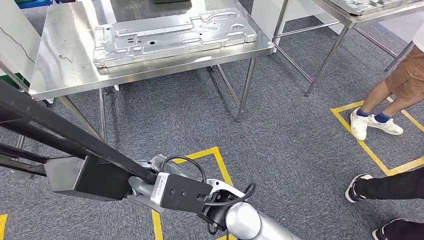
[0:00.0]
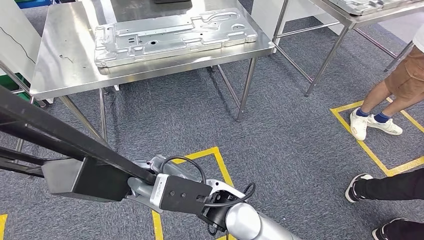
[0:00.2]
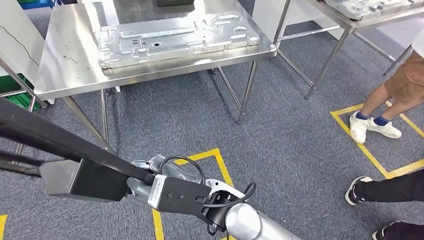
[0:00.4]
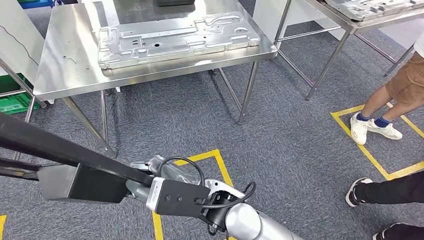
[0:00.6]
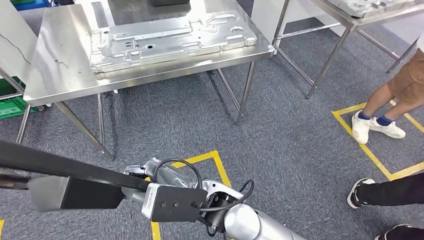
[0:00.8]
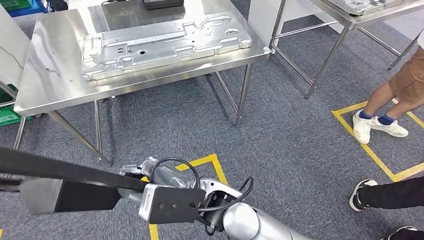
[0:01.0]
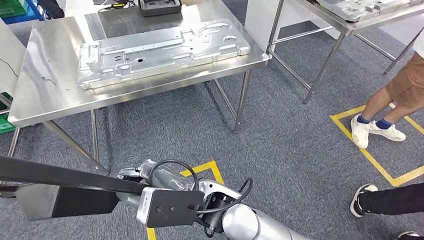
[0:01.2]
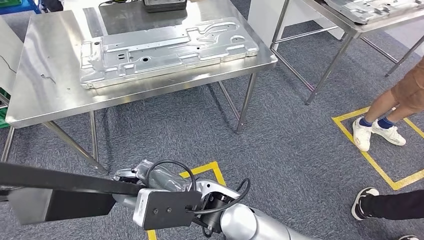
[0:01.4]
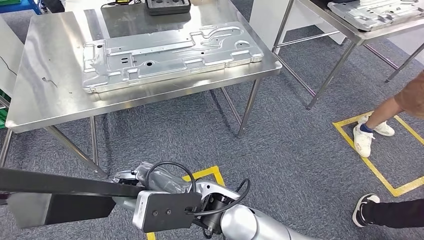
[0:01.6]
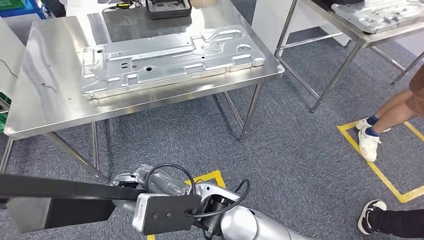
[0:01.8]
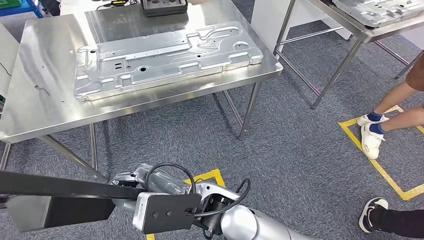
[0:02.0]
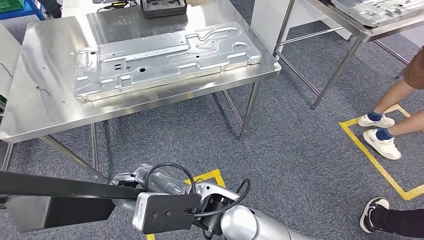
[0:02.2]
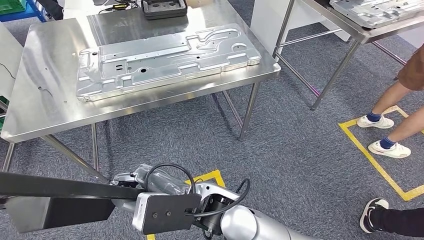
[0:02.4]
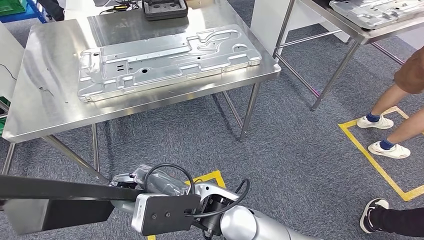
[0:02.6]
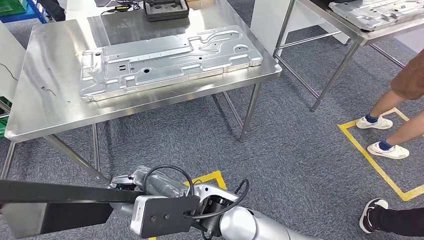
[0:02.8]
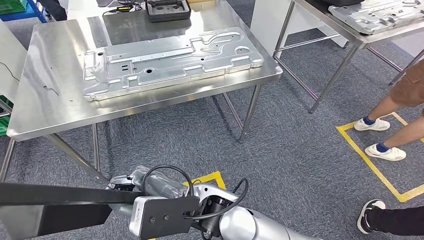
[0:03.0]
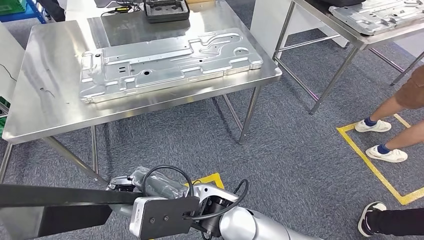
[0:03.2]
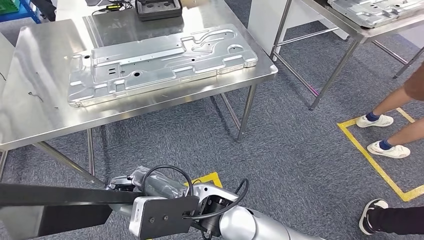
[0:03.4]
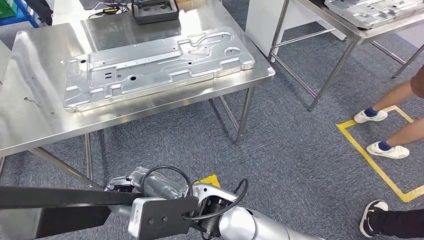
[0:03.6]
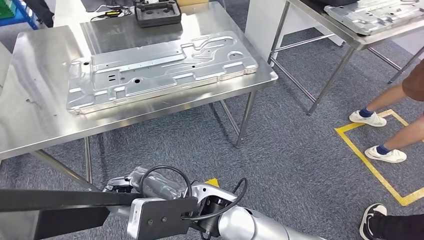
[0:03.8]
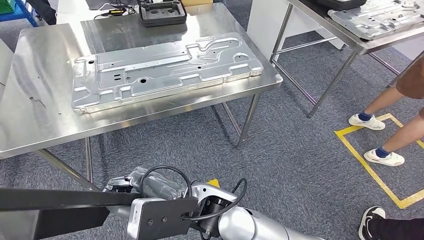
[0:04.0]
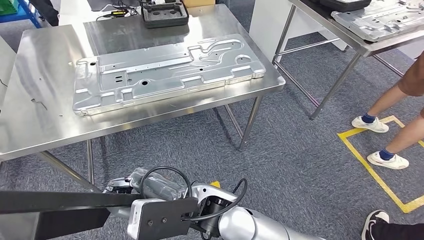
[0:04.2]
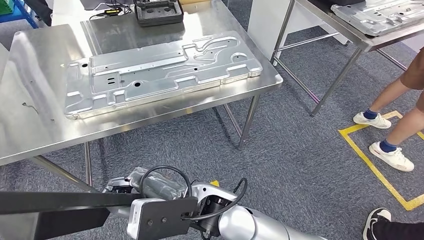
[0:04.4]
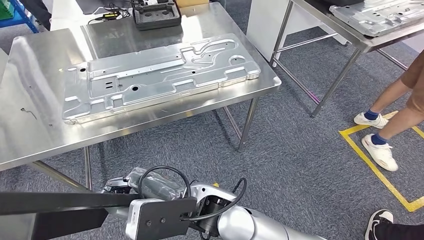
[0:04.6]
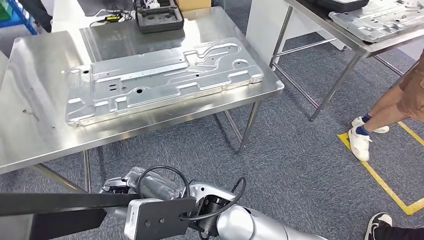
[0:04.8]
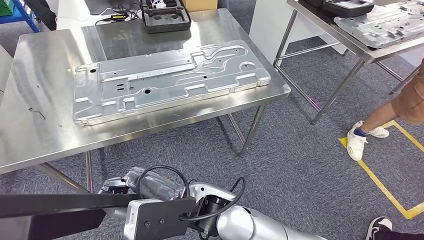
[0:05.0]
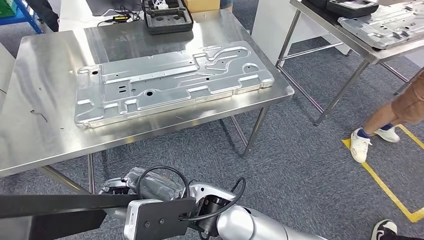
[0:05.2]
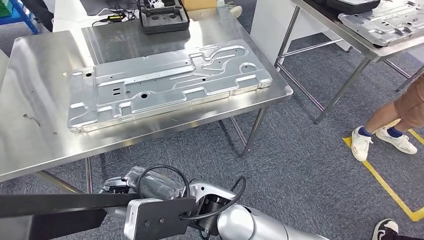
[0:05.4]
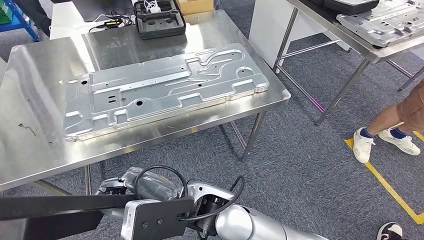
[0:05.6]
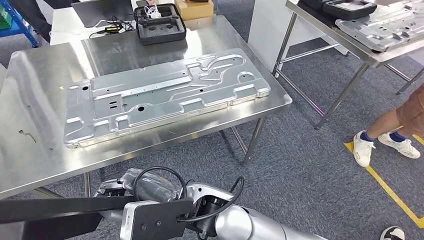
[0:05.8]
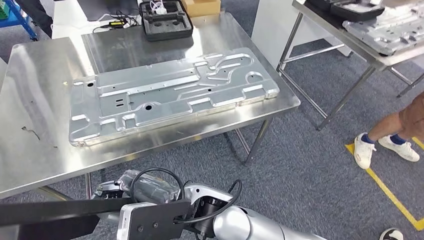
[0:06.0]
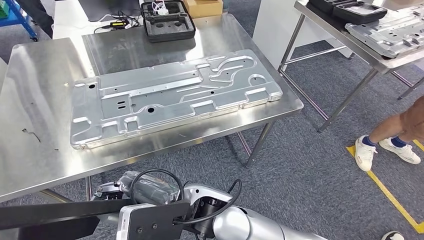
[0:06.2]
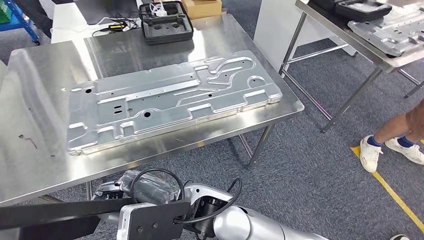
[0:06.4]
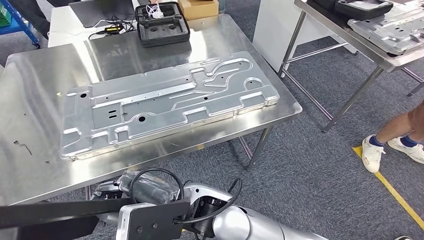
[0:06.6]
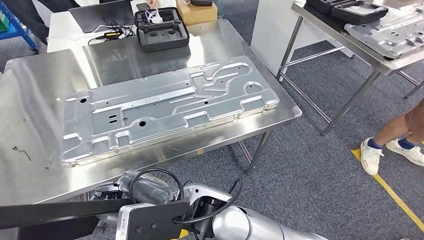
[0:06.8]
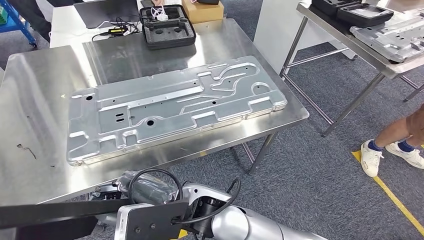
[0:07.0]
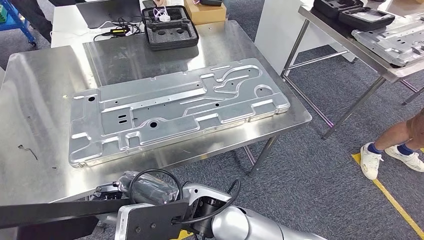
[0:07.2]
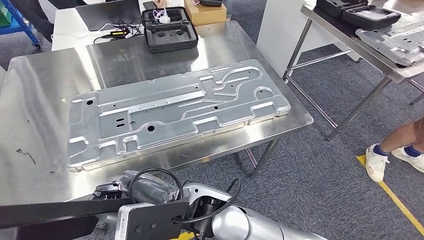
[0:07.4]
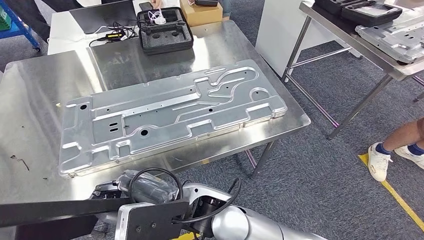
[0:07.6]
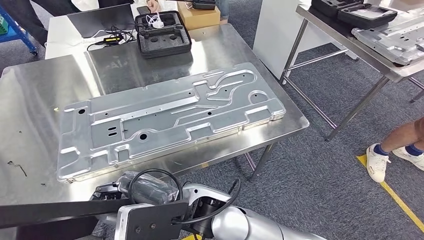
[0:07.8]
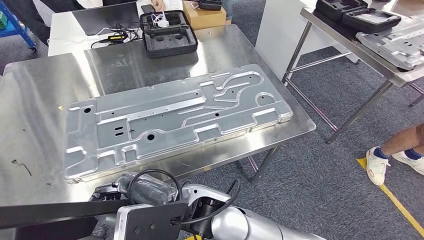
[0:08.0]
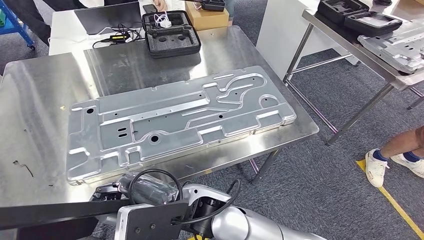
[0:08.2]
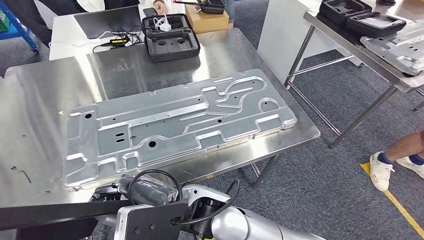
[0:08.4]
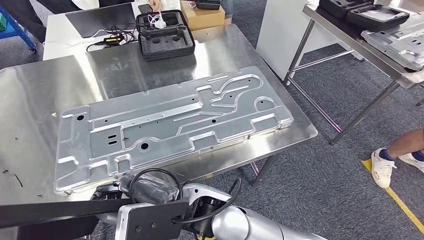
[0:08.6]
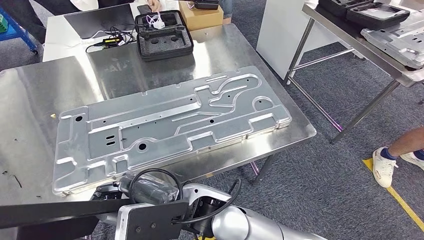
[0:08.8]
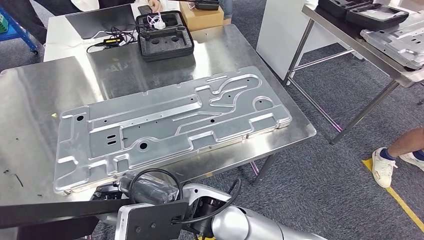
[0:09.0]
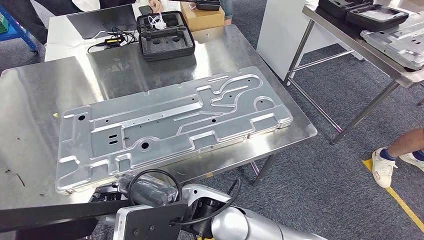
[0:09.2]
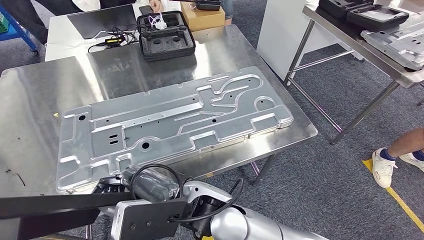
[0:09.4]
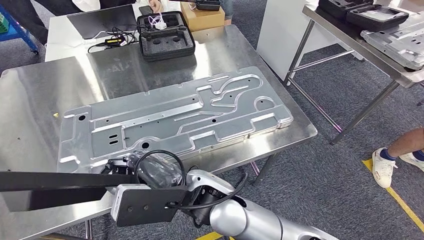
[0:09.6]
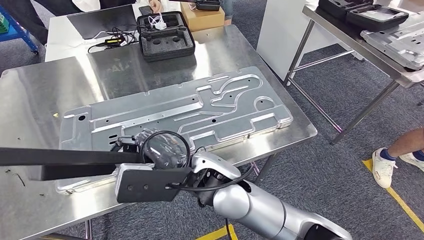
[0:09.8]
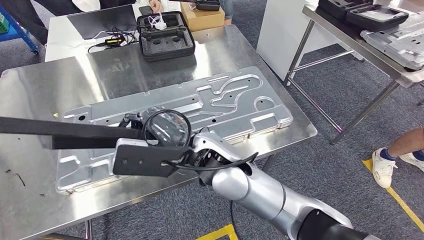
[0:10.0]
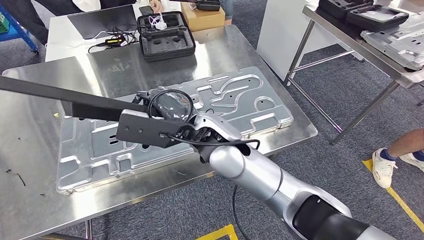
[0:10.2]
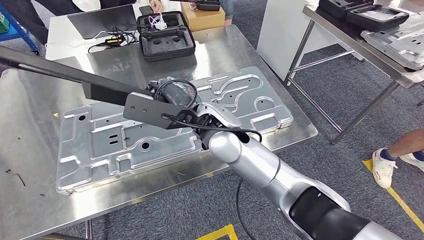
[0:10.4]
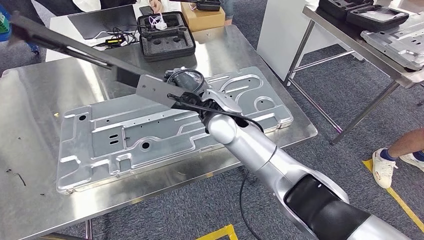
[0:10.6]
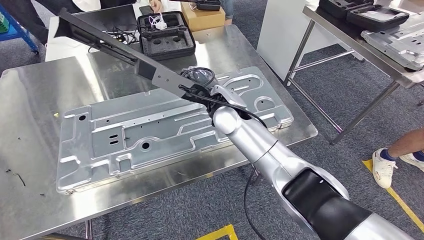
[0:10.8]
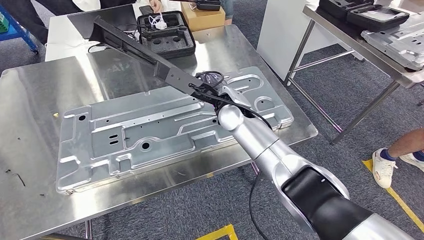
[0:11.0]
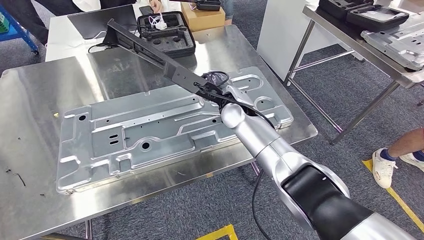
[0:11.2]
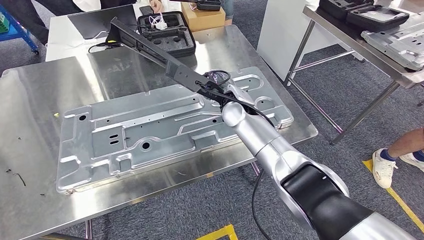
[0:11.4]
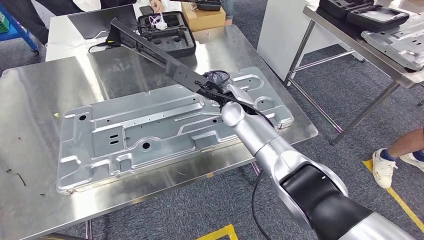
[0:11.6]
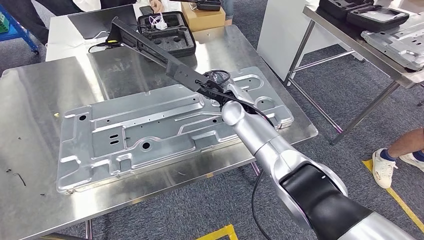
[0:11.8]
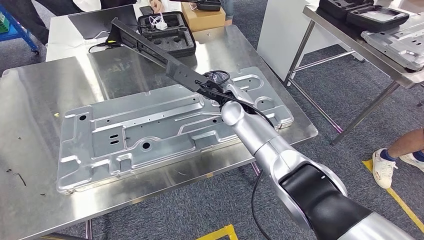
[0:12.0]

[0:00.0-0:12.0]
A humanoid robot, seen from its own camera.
Step, 0:00.0 to 0:09.2: Move the large material to the front of the workbench.
0:10.4 to 0:12.0: The right hand is displaced to the right and downward by approximately 10 cm.

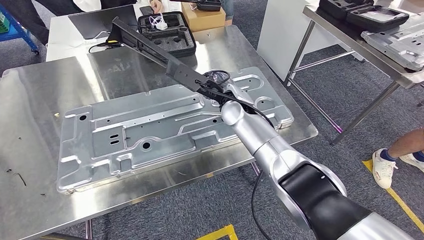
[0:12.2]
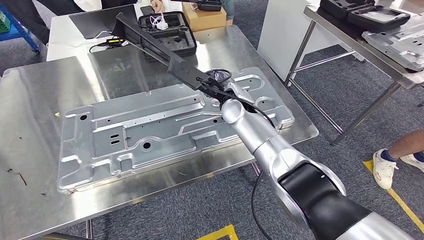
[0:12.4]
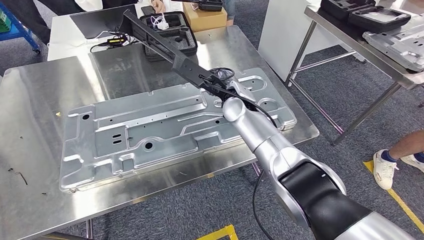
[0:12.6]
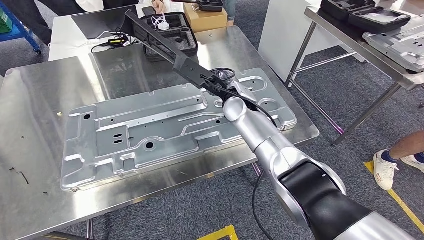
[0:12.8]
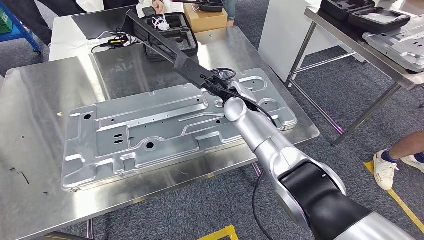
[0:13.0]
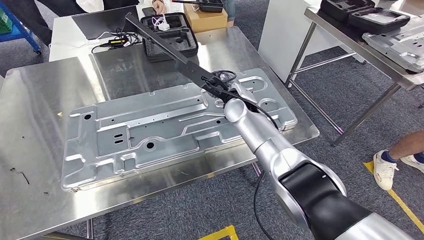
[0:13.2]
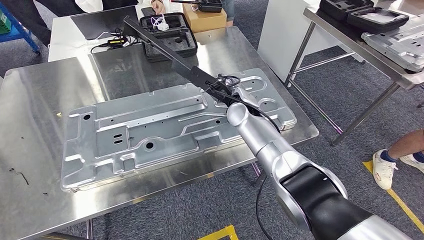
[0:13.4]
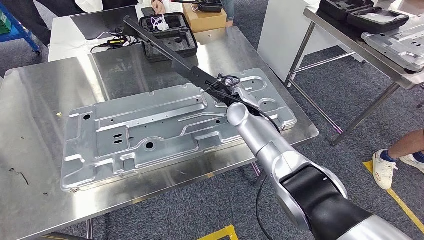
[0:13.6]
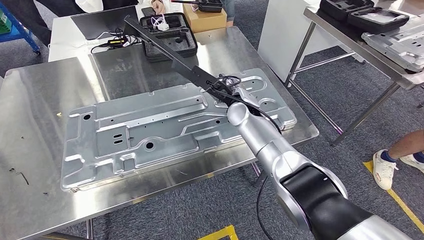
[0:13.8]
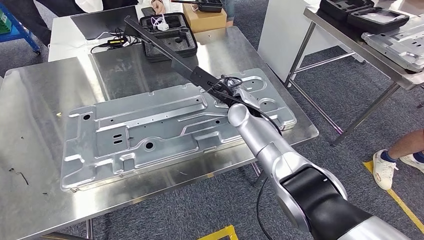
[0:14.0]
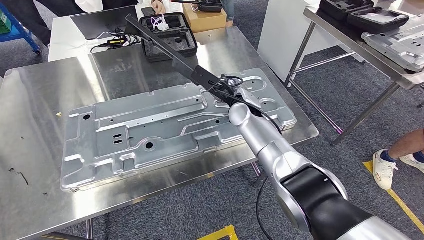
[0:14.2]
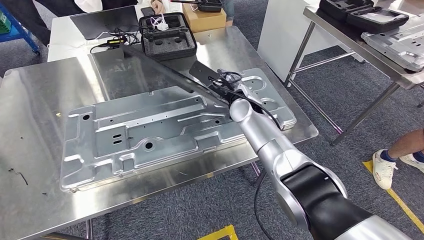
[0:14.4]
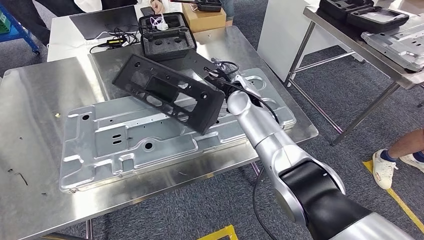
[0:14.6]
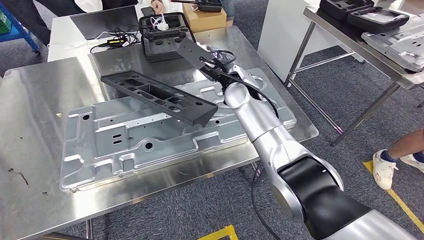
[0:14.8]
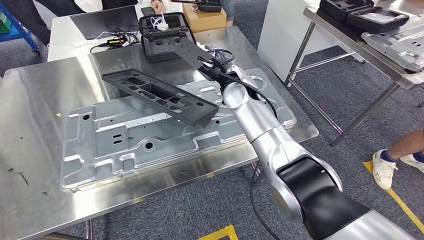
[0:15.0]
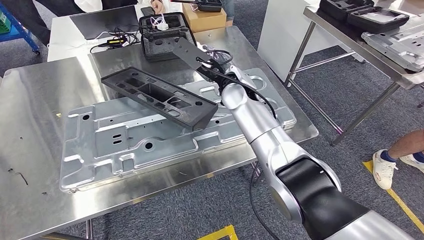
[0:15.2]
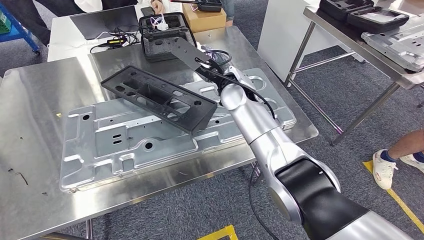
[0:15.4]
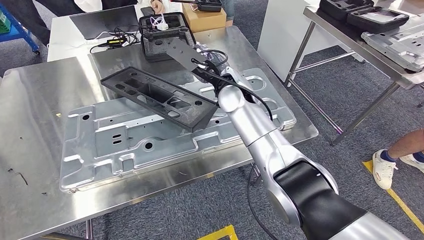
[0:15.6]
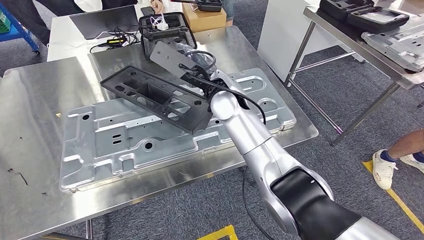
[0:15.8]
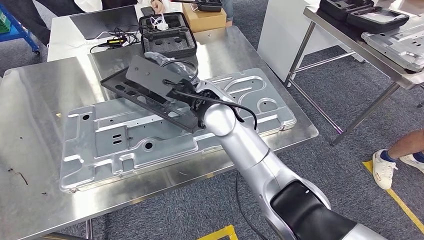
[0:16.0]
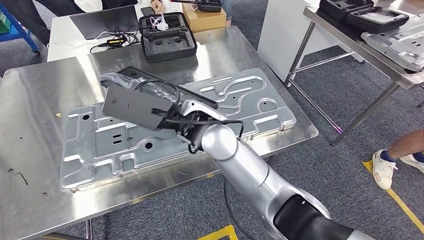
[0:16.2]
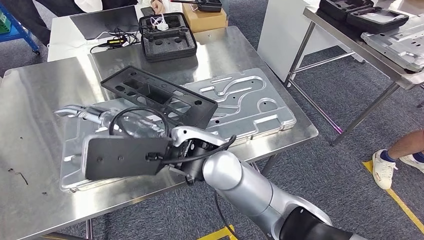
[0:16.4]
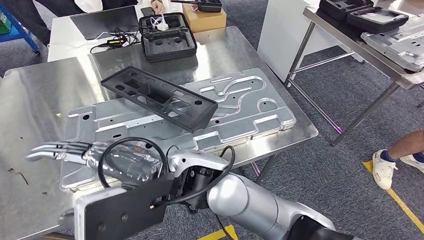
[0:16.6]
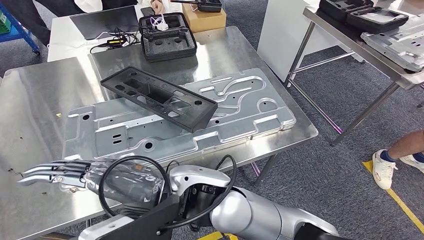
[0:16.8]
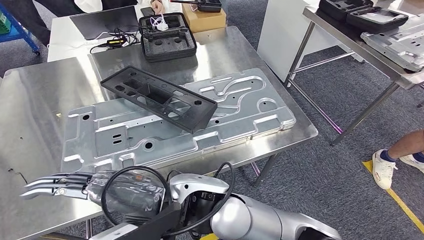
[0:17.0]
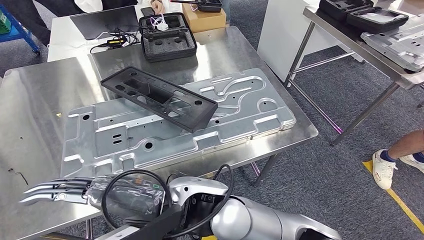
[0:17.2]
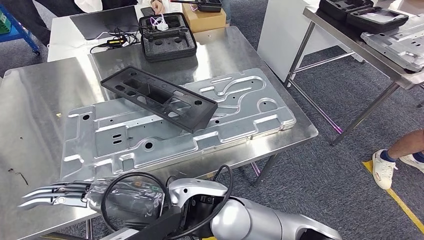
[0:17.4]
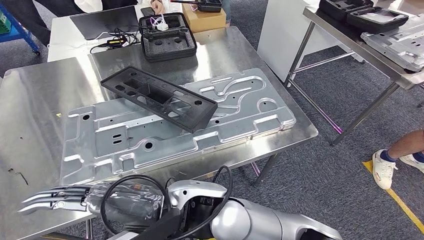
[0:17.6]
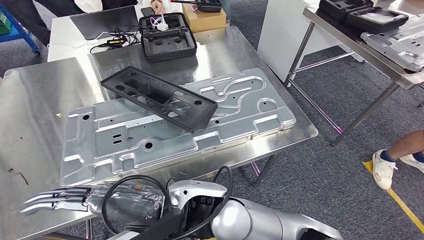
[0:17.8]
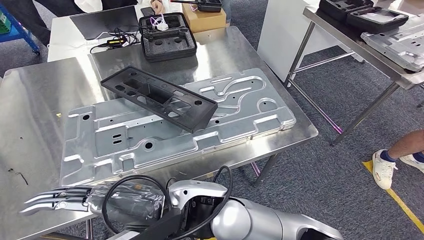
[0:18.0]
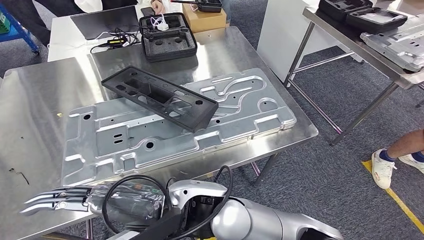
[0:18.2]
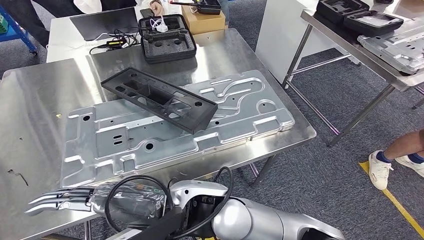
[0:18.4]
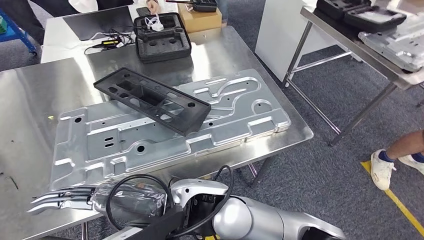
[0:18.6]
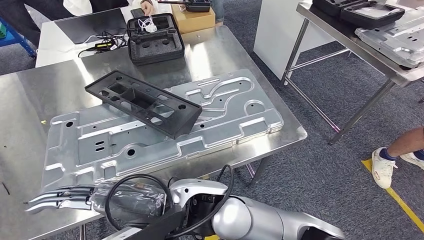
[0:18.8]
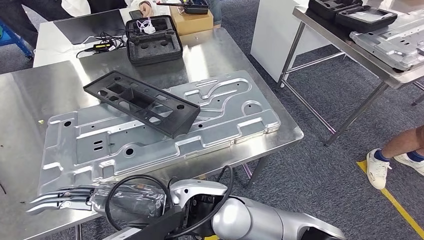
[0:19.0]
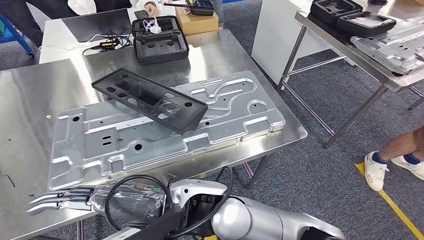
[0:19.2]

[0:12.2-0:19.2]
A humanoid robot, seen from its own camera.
Step, 0:12.2 to 0:17.8: Insert the large material into the corresponding hole on the workbench.
0:12.2 to 0:13.6: The hands move only a little.
0:13.6 to 0:15.0: The right hand travels upward by some 5 cm.
